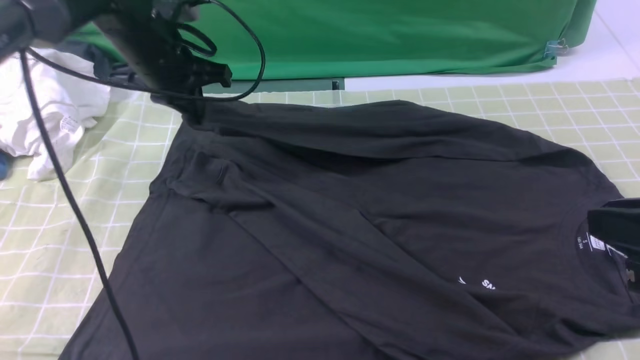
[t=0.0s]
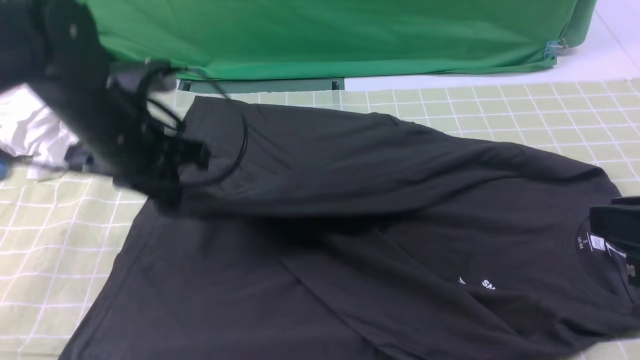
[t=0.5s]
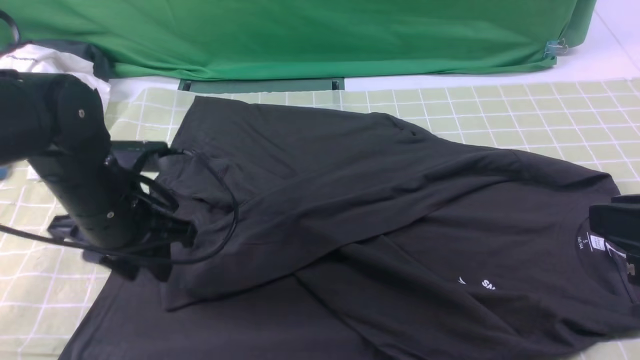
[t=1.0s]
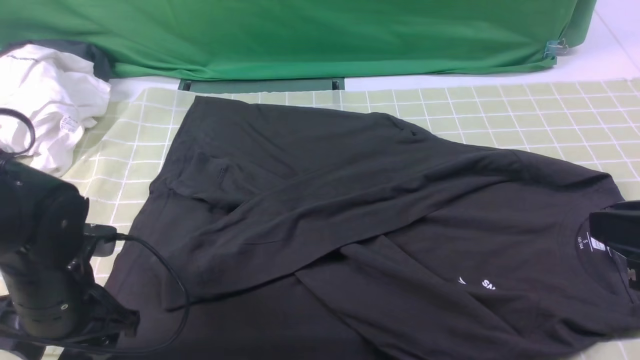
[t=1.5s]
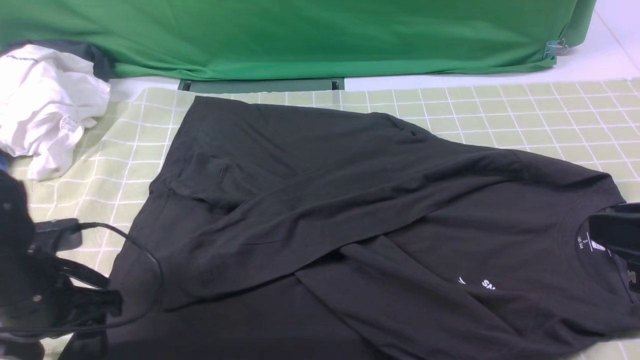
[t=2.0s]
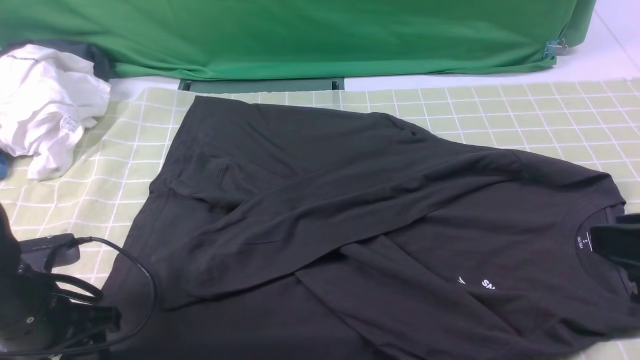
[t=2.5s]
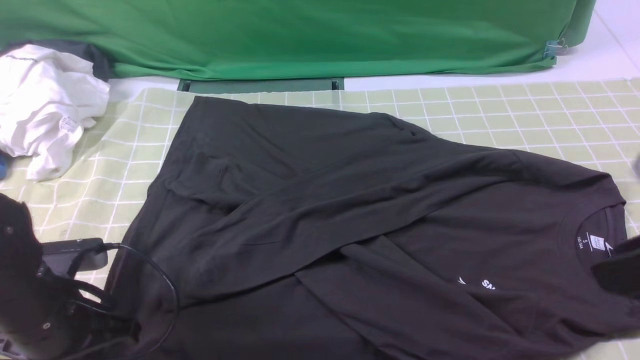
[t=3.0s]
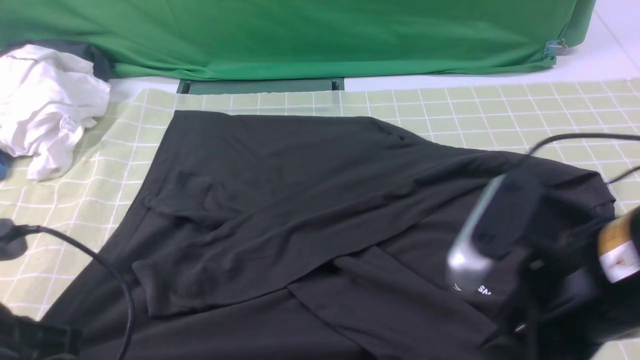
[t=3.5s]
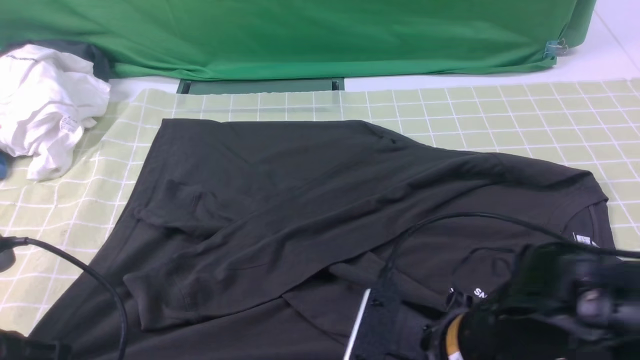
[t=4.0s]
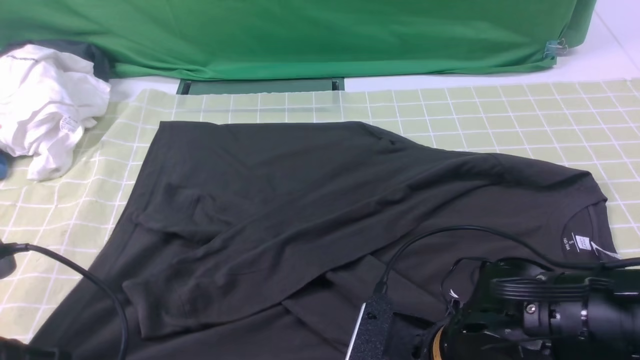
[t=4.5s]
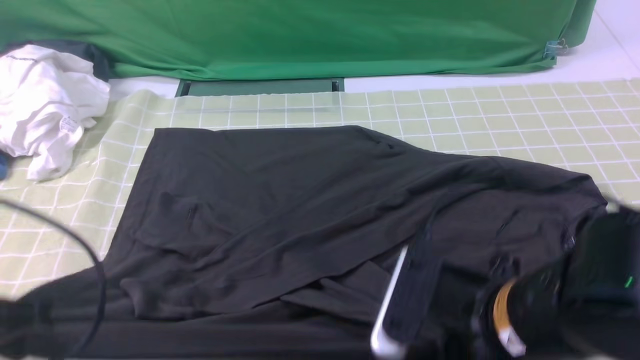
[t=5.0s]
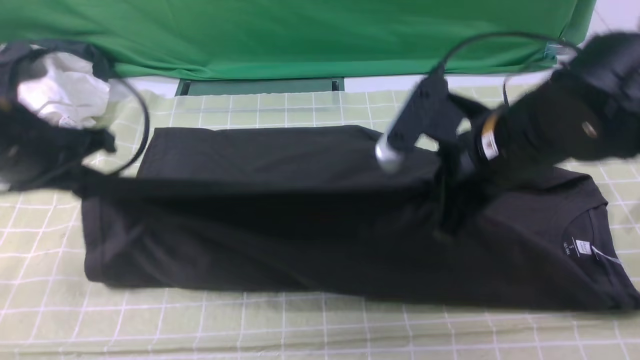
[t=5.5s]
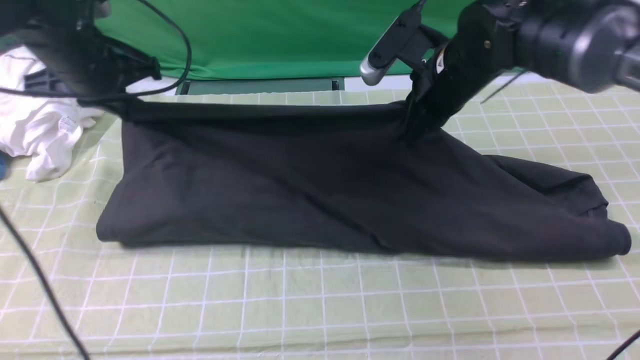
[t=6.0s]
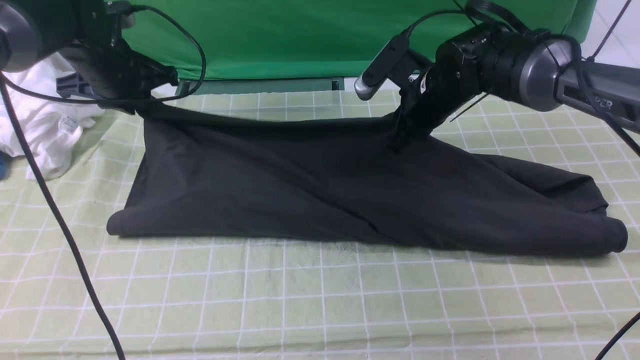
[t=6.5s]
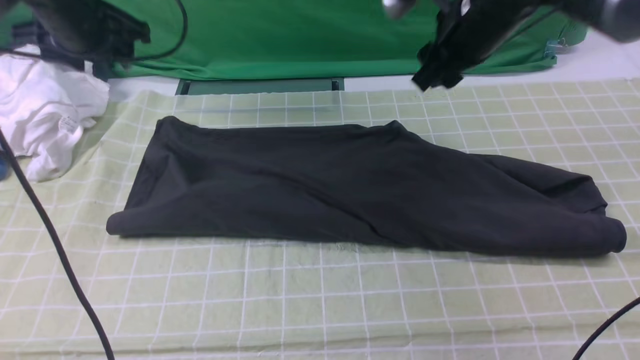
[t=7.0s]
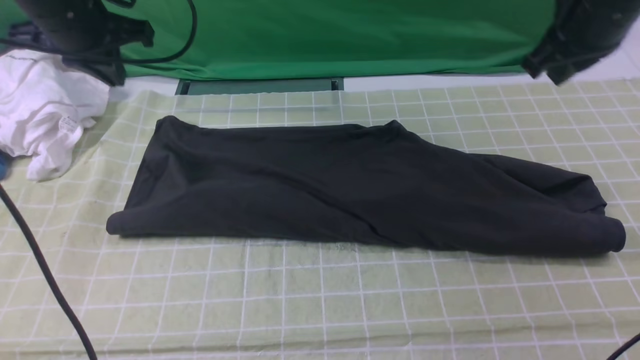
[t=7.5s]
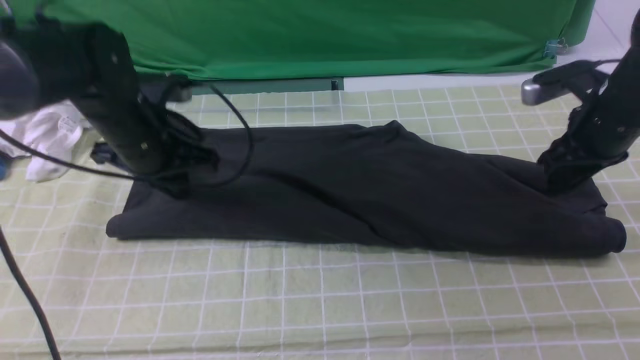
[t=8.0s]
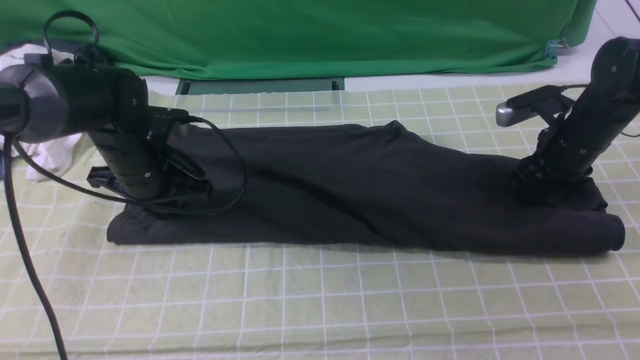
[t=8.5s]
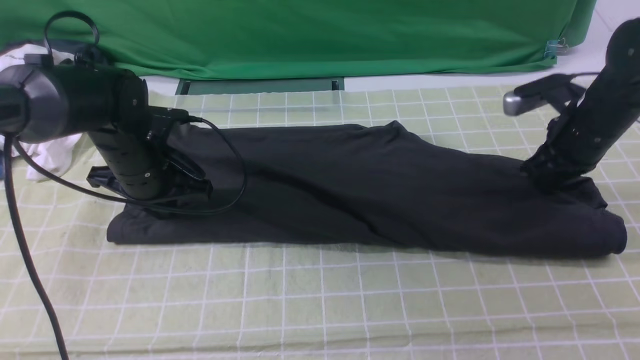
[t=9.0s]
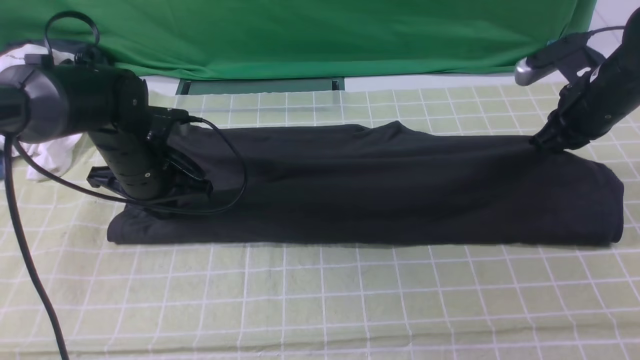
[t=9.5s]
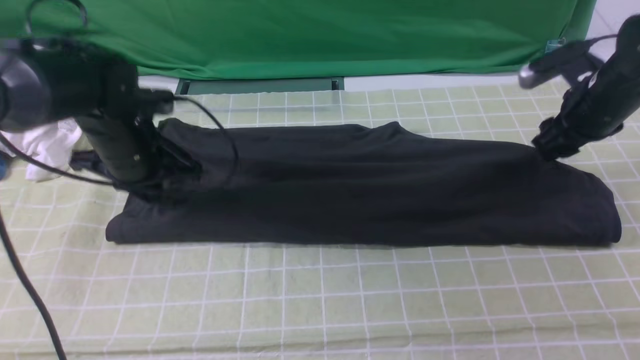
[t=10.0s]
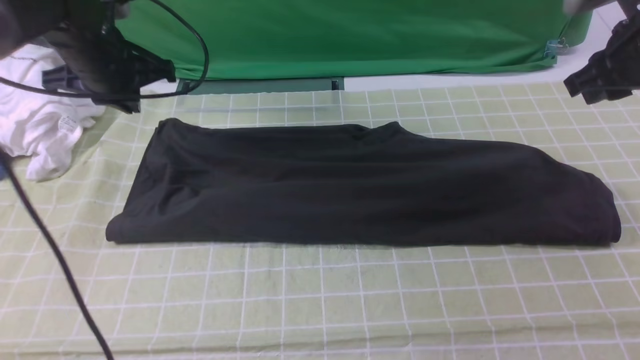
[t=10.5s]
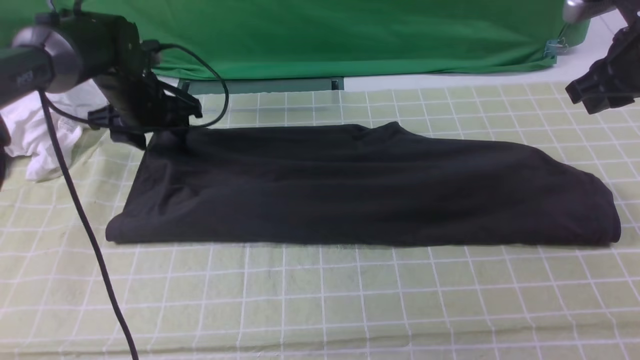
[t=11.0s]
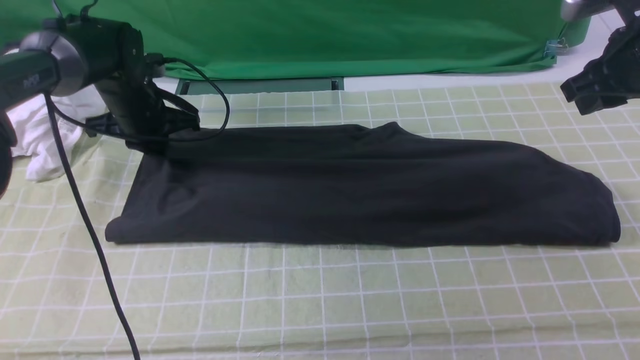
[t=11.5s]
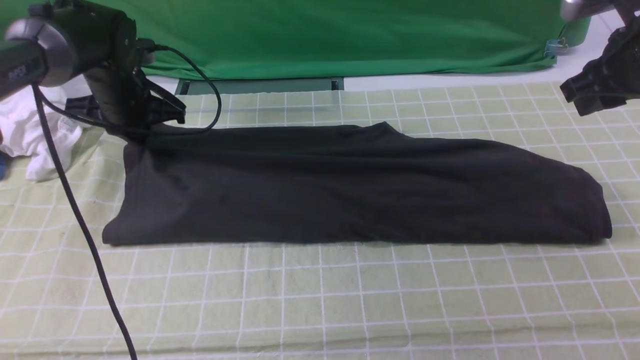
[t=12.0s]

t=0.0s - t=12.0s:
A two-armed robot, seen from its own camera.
Step, t=0.0s - t=1.0s: use the left arm to drag and drop the cuff onto the cuff closest to the left arm.
Step, t=1.5s - t=4.5s: use both arms simultaneously to clamp the lower edge of the clothing fabric.
Step, t=5.0s - t=6.5s: use both arms to drag the lower edge of the fabric forward and fold it over the upper edge.
t=0.0s - t=2.0s: The left gripper is displaced backward and downward by about 25 cm, and opens its fingers.
t=2.0s - t=4.0s: The right gripper moves to the left and downward, some 20 cm, and opens its fingers. The left gripper shifts about 15 cm backward and upward, and closes its fingers.
t=4.0s - t=6.0s: Both grippers travel together forward, approximately 30 cm. The right gripper closes its fingers.
t=6.0s - t=8.0s: The left gripper heads to the right, downward and backward, covering roughly 10 cm, and opens and closes again; the right gripper goes about 15 cm to the right, and opens its fingers.
t=8.0s - t=10.0s: The right gripper closes and opens again.
t=10.0s - t=12.0s: The right gripper is displaced upward by about 5 cm; the left gripper heads forward, covering roughly 10 cm, and opens and closes again.

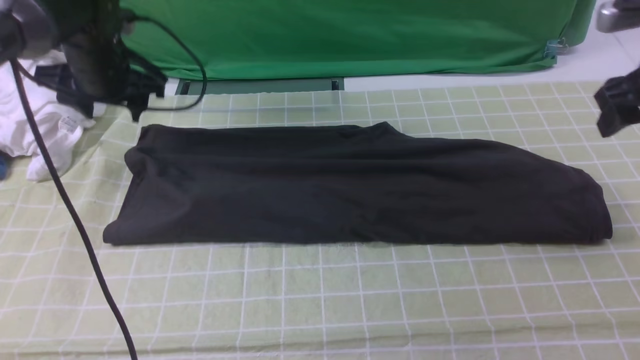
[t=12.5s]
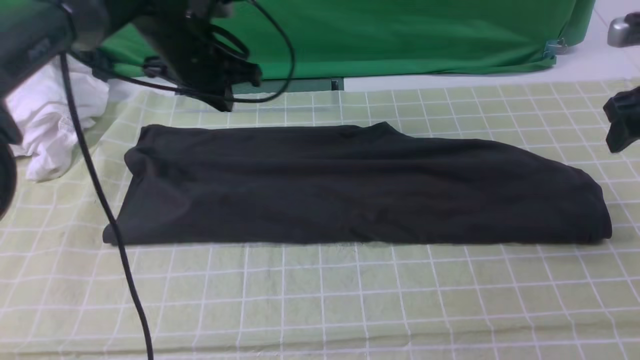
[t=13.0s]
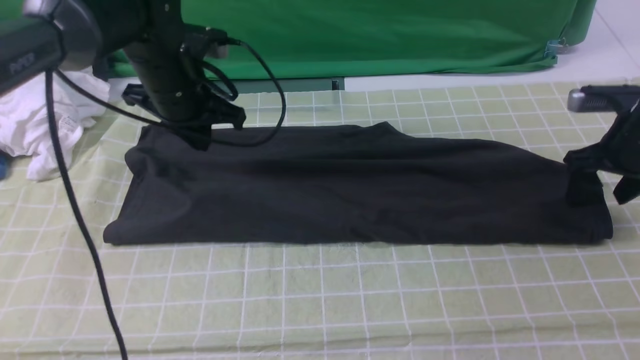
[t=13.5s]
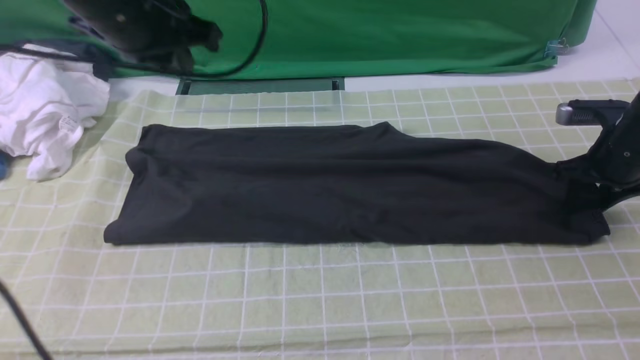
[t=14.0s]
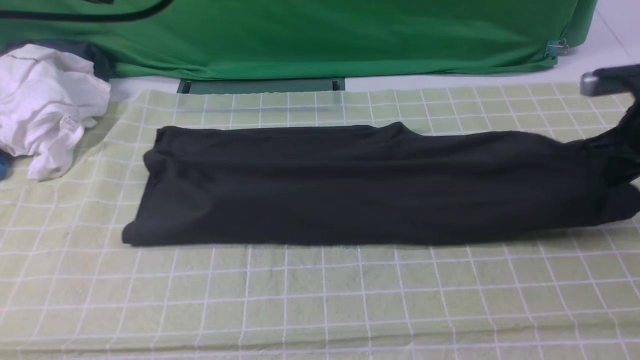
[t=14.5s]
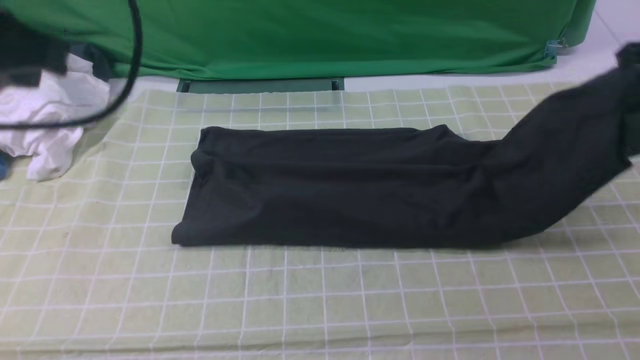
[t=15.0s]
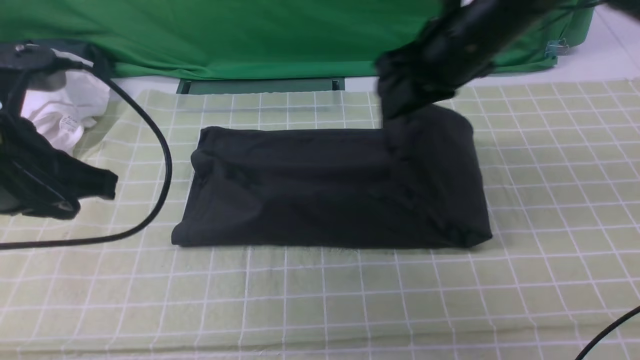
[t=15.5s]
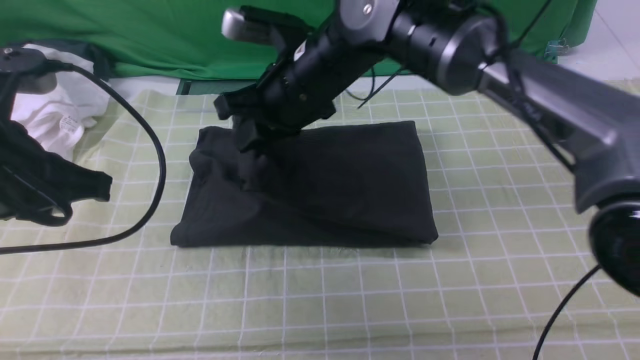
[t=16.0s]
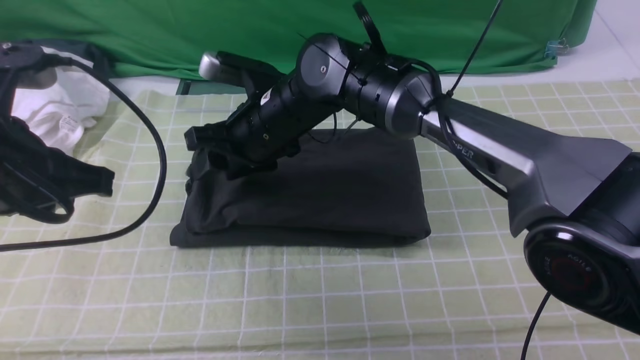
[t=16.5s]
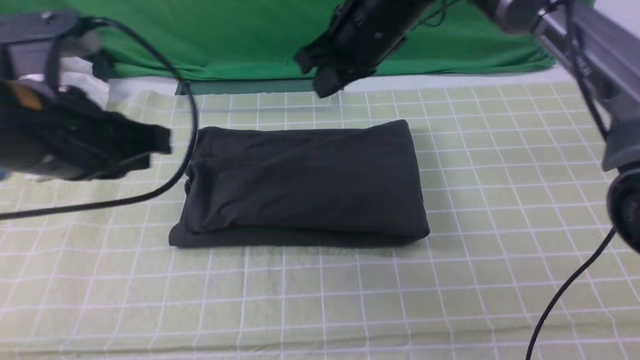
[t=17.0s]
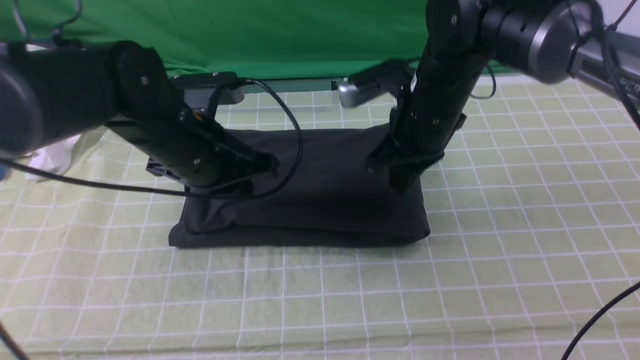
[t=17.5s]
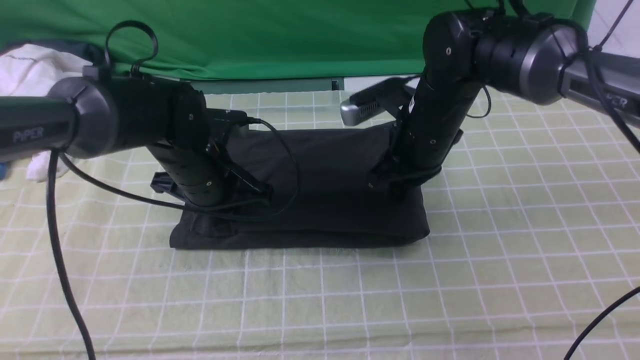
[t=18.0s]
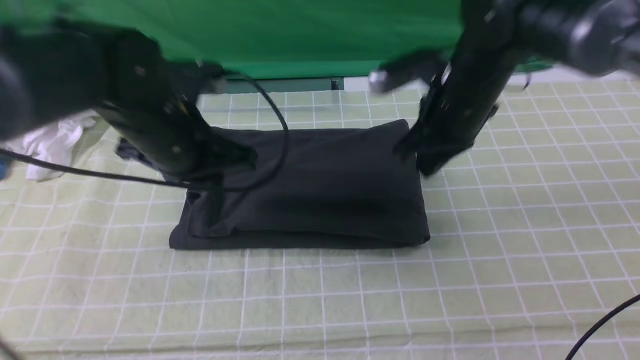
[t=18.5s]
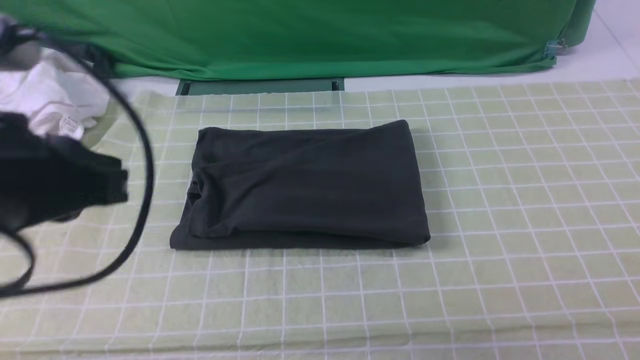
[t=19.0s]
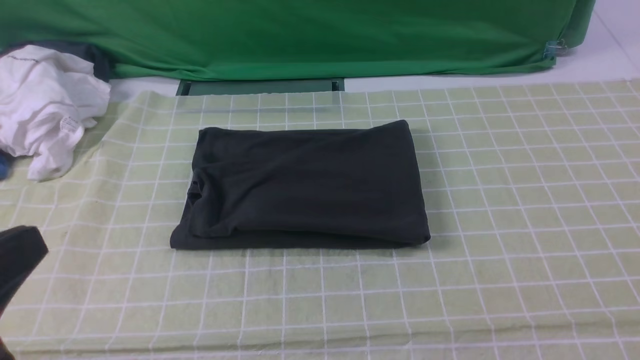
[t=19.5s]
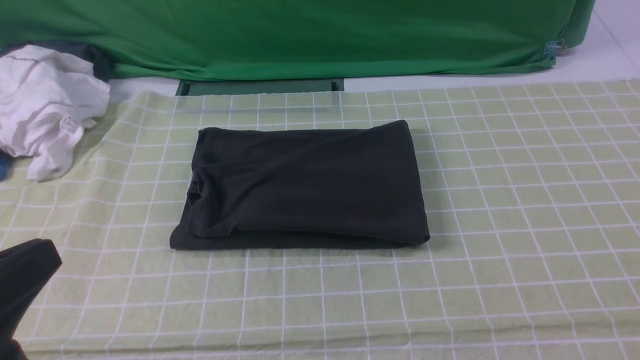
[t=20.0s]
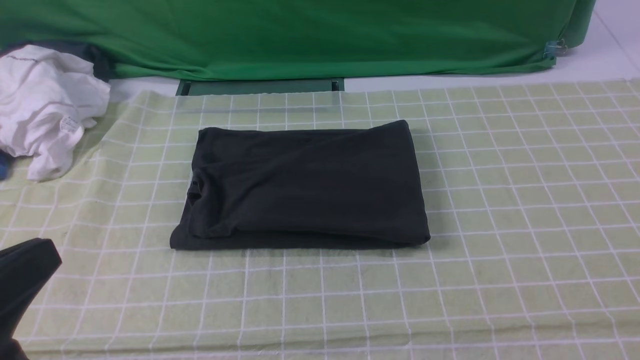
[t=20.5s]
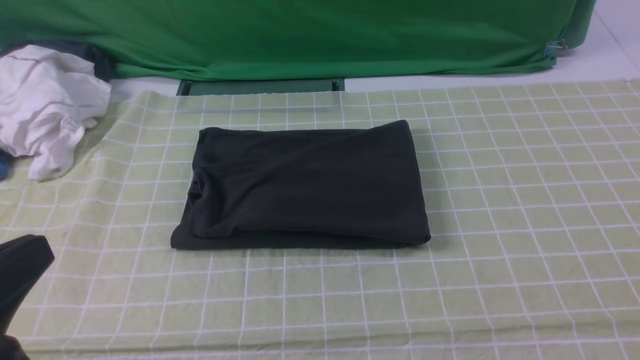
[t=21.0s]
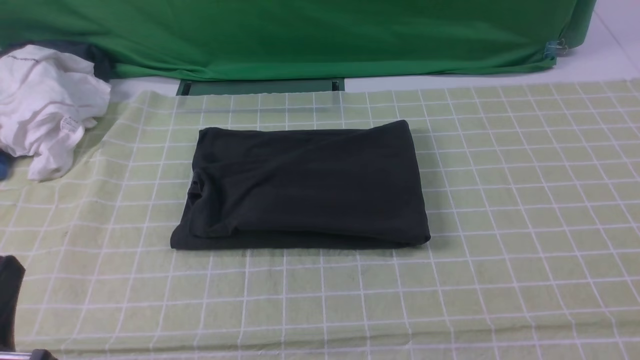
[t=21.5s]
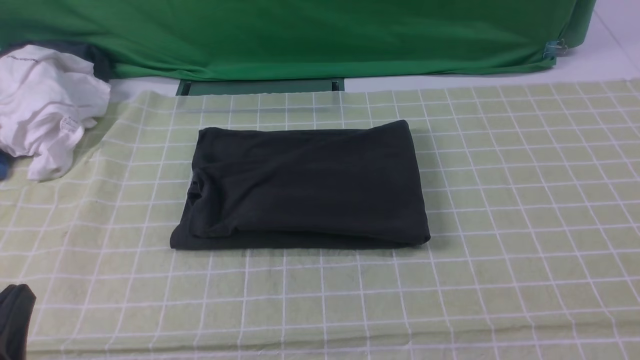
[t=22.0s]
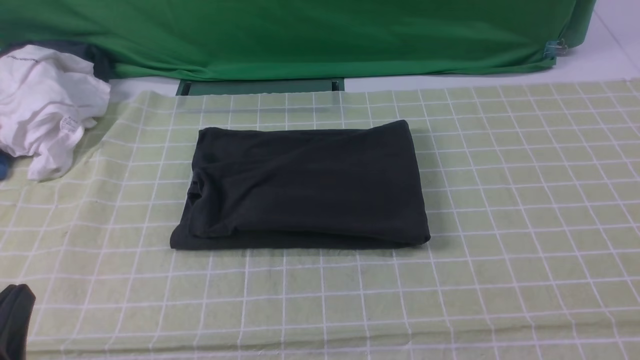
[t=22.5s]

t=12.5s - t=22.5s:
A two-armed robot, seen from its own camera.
Step, t=14.5s - t=16.5s: use the right arm to drag the right edge of the fabric to the left and folds it over the left edge.
t=12.5s - t=14.5s: The right gripper moves downward, approximately 10 cm, and closes. The left gripper moves upward and backward, some 30 cm, and closes up.
t=14.5s - t=16.5s: The right gripper is displaced to the left by approximately 40 cm, and opens its fingers, while the left gripper moves downward, roughly 15 cm.
t=16.5s - t=18.5s: The right gripper goes about 20 cm to the right, and closes up; the left gripper goes some 15 cm forward, to the right and downward.
t=18.5s - t=20.5s: The left gripper travels backward by some 25 cm; the right gripper heads backward and to the right, covering approximately 40 cm, and opens up.
t=20.5s - t=22.5s: The left gripper moves downward, about 10 cm.
